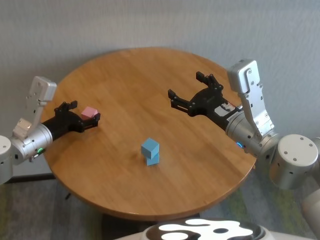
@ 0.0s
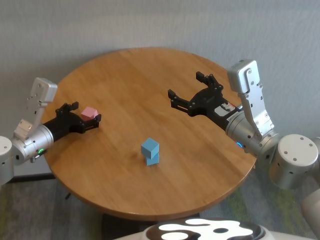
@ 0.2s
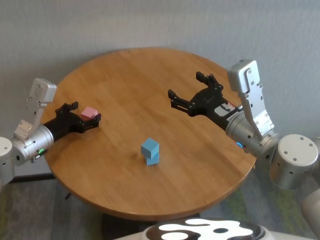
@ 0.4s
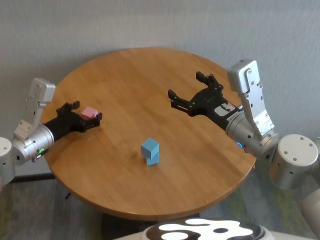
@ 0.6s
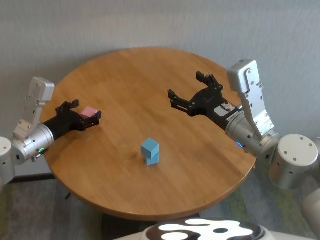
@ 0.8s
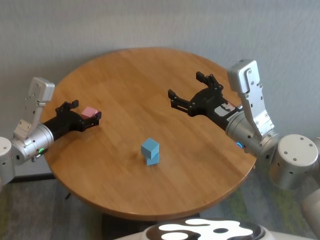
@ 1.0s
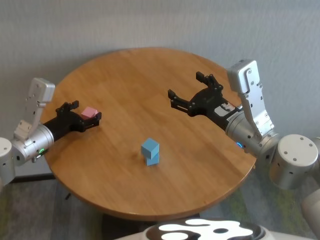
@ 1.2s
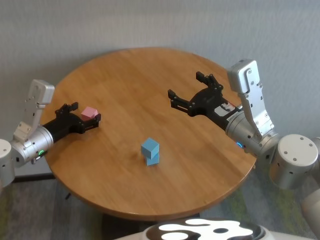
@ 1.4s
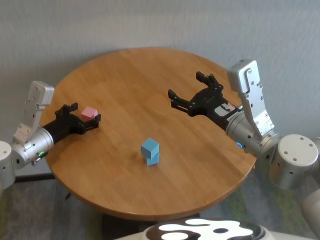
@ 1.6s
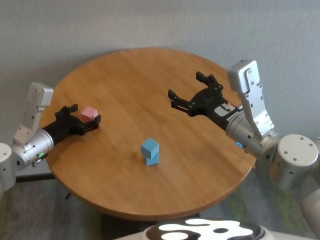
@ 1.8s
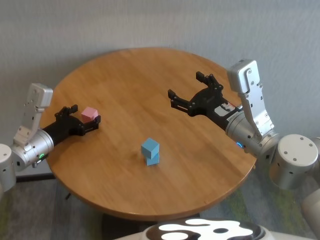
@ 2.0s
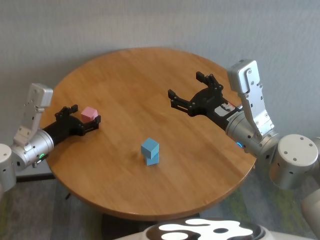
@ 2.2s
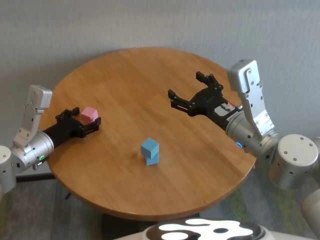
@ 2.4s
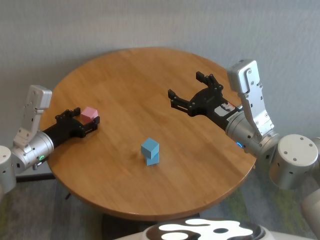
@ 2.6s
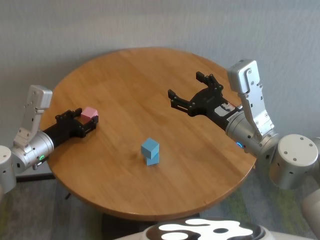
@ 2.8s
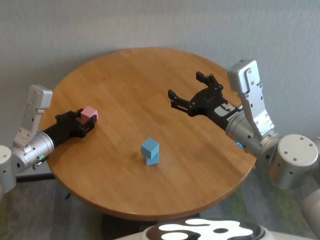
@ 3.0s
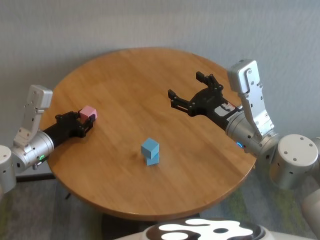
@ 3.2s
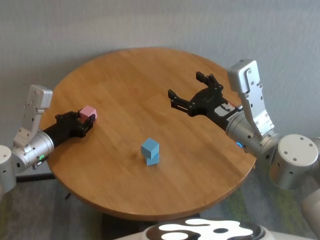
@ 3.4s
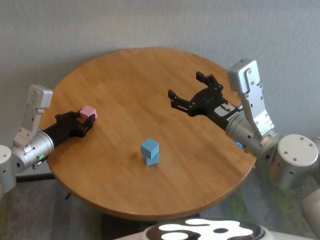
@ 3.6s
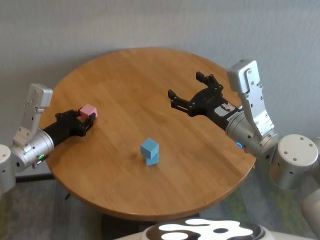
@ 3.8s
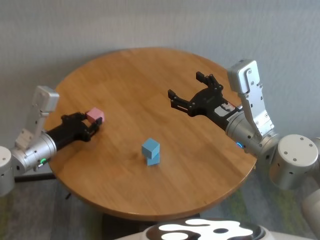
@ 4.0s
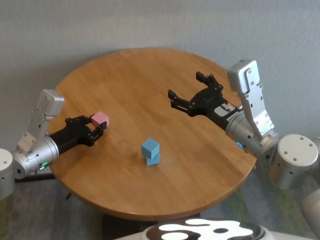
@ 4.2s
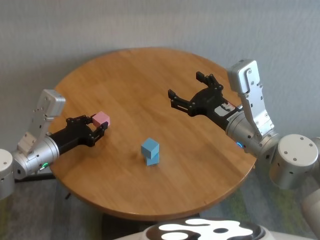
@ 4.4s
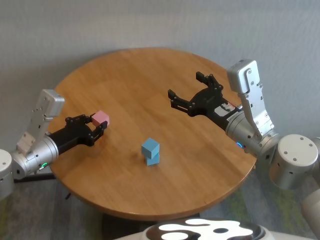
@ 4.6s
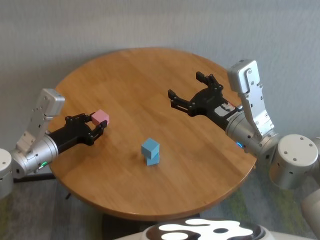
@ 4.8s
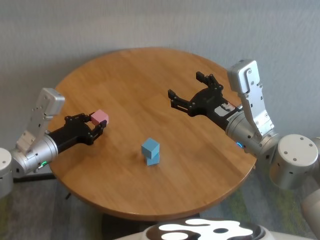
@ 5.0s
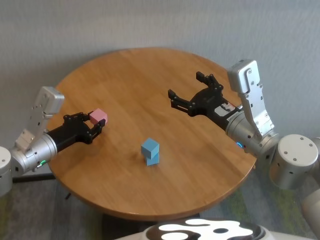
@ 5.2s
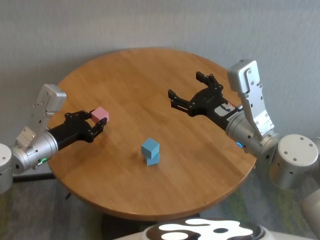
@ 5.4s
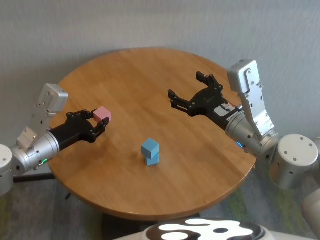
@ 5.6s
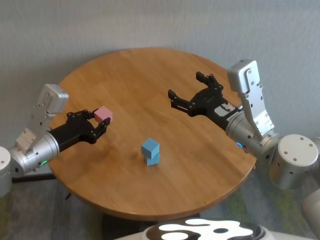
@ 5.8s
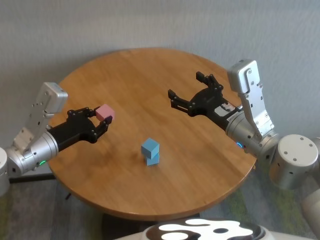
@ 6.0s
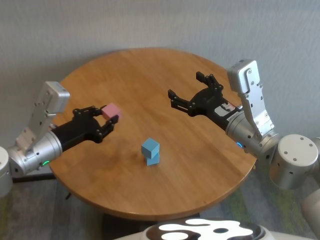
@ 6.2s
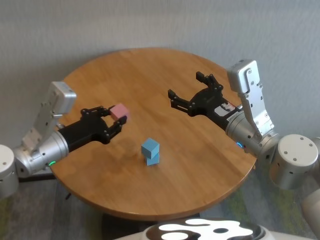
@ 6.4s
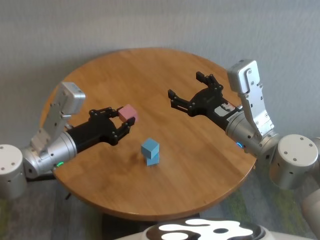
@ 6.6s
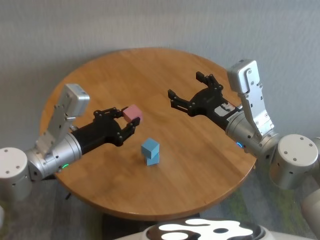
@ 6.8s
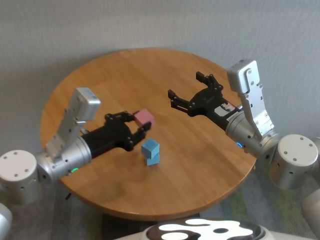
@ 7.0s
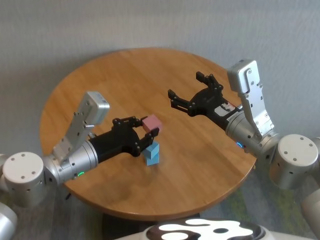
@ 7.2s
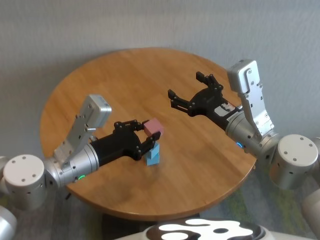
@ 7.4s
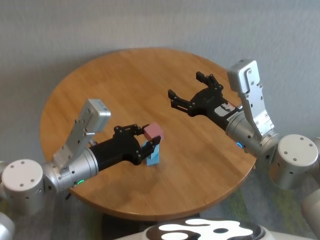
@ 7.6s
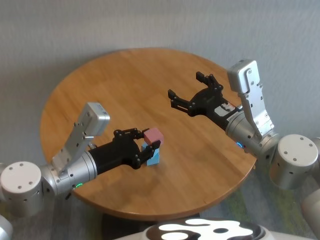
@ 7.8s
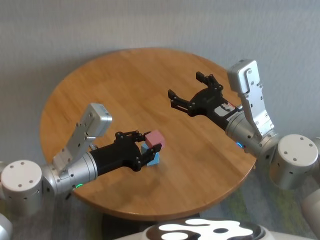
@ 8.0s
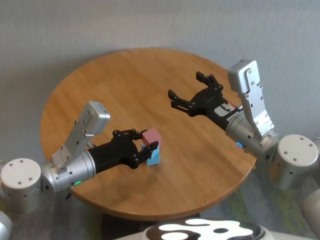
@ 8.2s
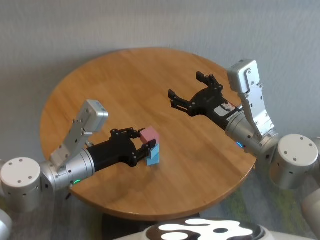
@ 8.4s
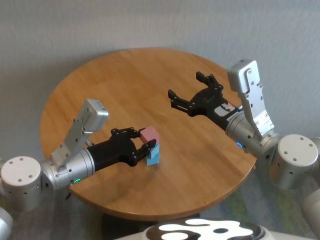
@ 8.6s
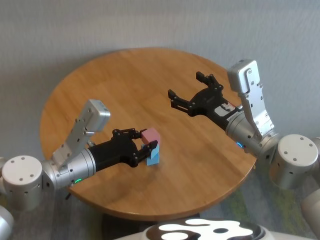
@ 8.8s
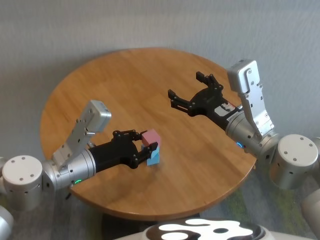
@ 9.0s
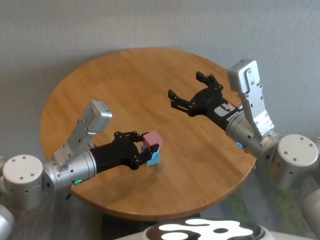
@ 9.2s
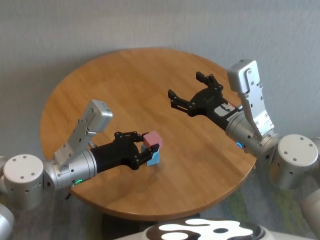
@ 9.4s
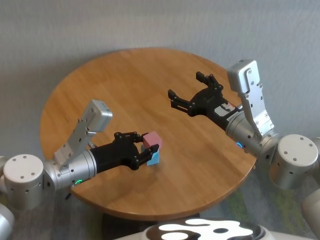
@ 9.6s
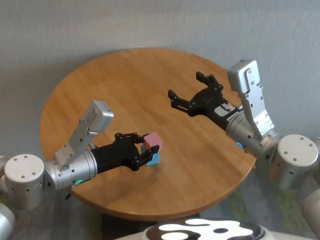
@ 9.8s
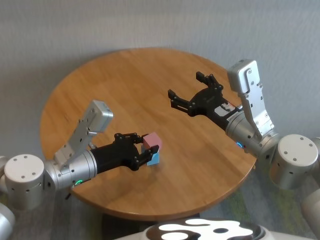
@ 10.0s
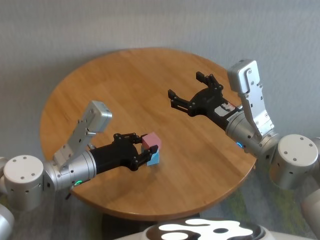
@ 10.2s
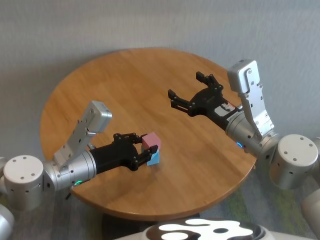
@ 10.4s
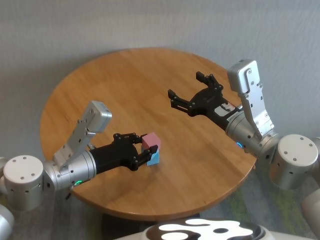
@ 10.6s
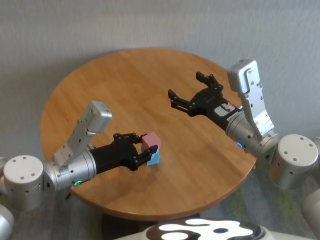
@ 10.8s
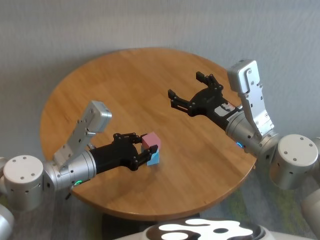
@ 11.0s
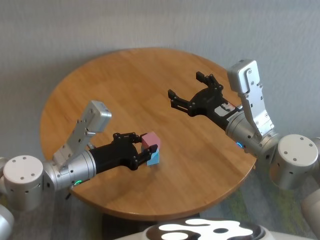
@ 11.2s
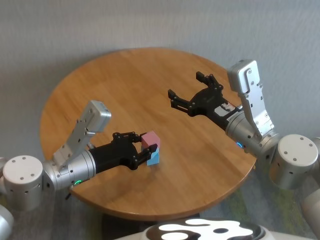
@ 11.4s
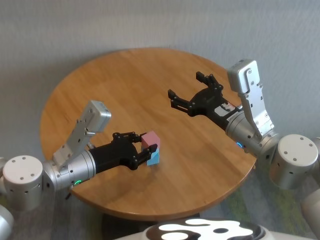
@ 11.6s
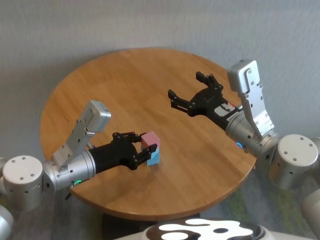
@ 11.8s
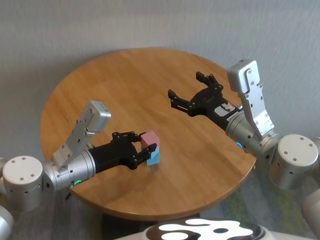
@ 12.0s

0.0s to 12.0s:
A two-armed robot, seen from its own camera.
Task of the whole recording: stack building blocks on the table.
Step, 0.0s to 3.6s: Grasp the pink building block with left gripper.

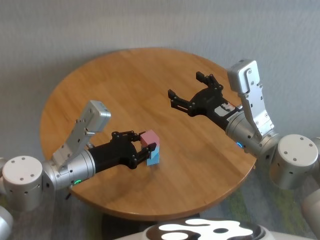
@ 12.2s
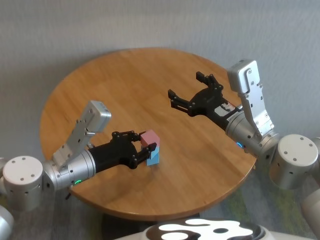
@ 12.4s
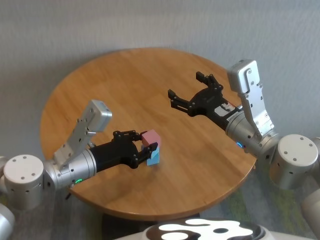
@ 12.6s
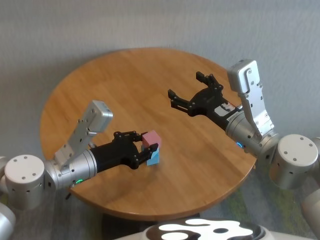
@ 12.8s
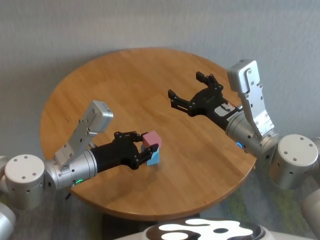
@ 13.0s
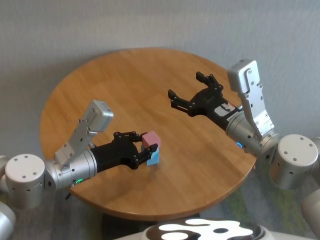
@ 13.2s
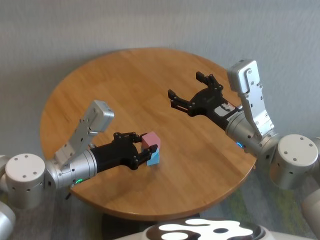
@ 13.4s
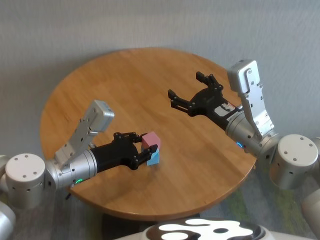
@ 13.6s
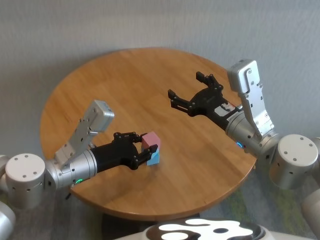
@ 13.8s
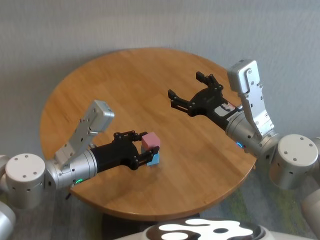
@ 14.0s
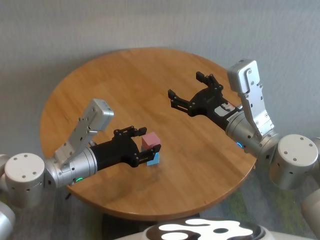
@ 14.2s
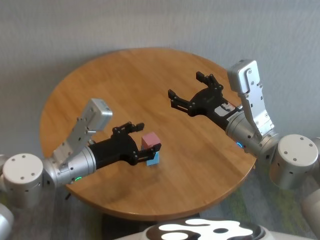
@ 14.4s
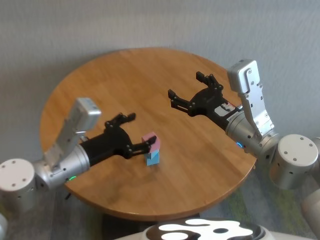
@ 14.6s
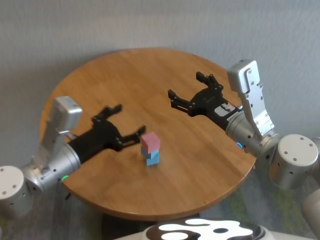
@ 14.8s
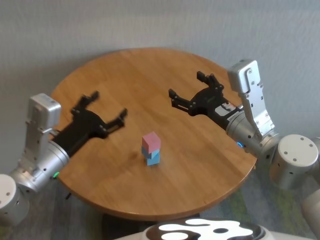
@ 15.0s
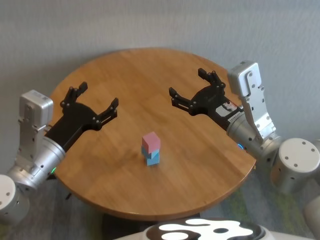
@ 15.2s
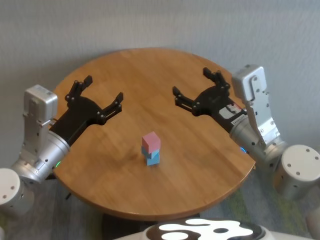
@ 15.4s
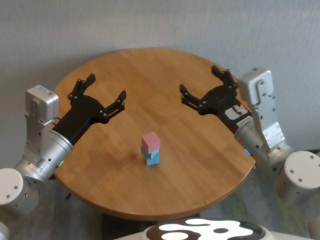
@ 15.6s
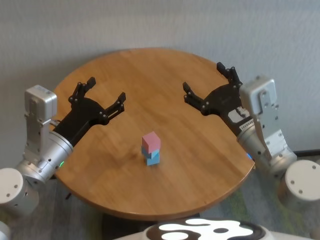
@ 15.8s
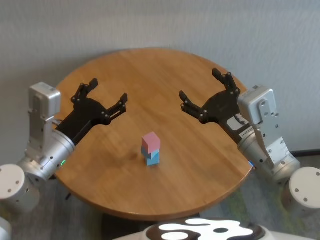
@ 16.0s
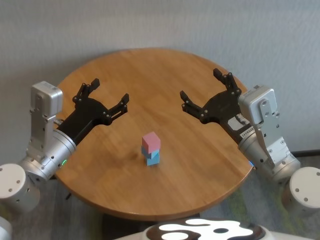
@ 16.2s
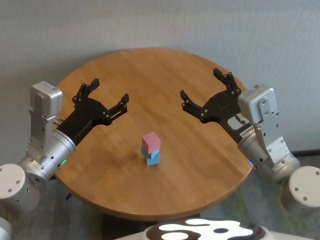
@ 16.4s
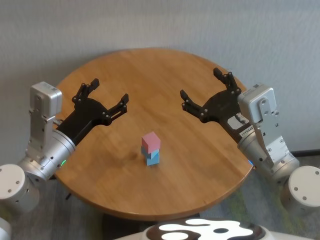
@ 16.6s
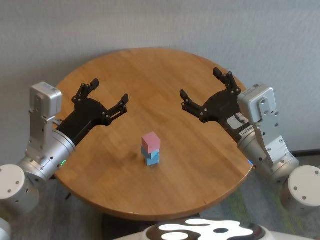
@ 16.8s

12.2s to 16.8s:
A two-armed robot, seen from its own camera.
Task of the whole recording: stack building blocks on the table.
Step, 12.2s to 14.4s: Place the pink building block on the blue building blocks with left gripper.
